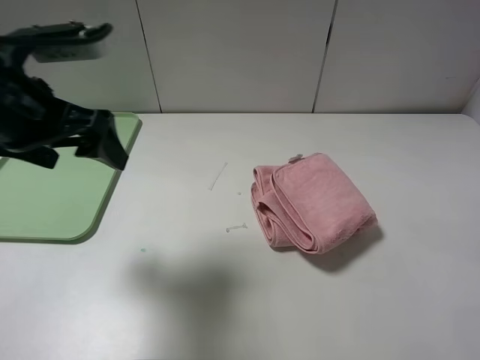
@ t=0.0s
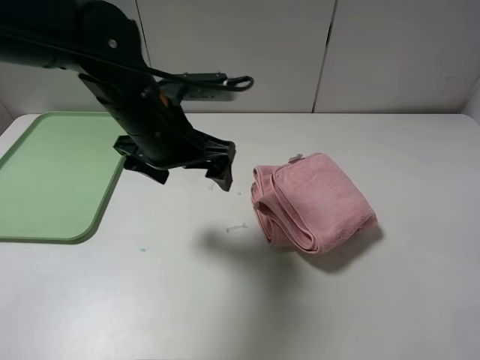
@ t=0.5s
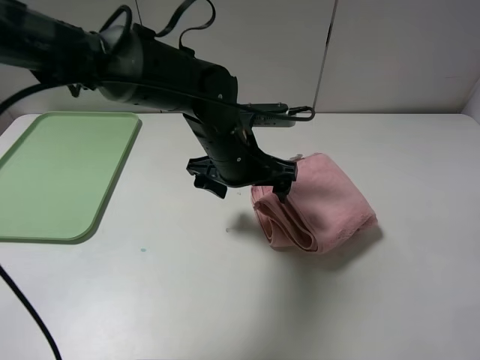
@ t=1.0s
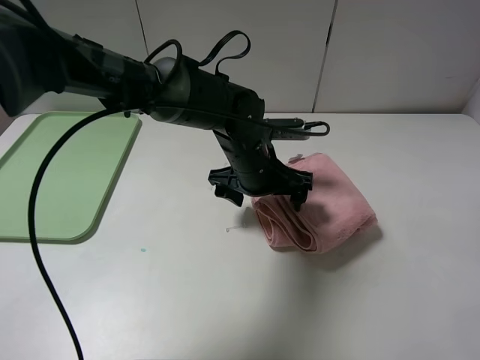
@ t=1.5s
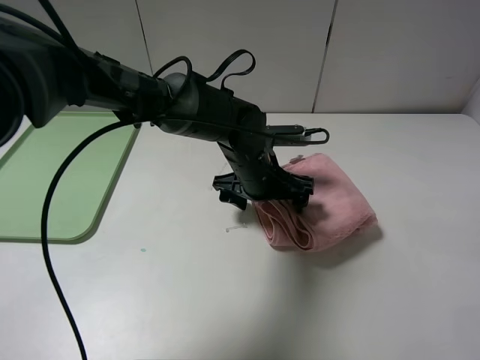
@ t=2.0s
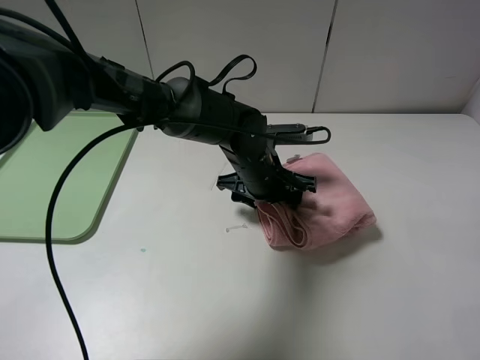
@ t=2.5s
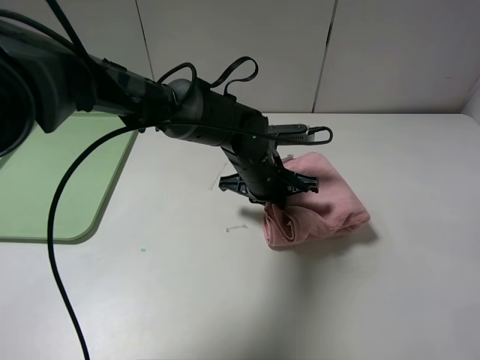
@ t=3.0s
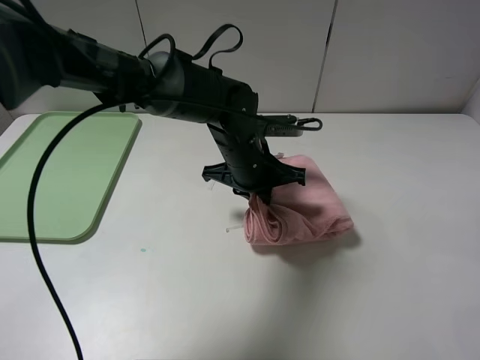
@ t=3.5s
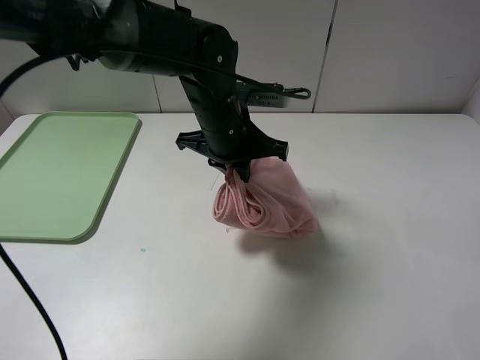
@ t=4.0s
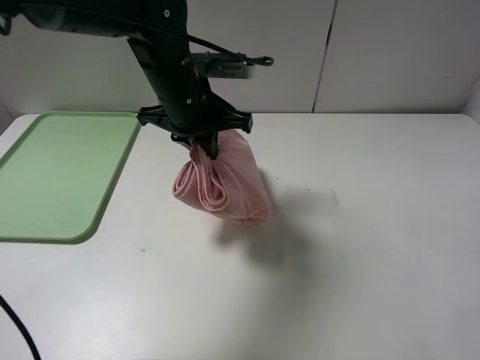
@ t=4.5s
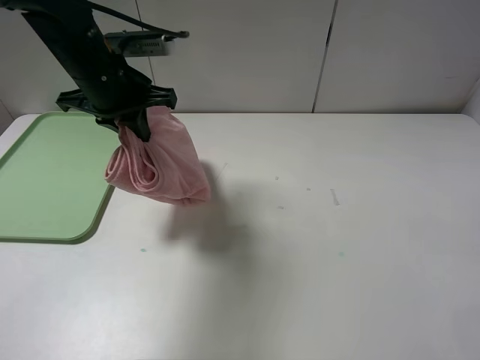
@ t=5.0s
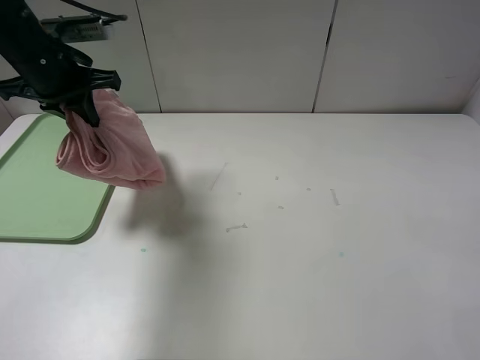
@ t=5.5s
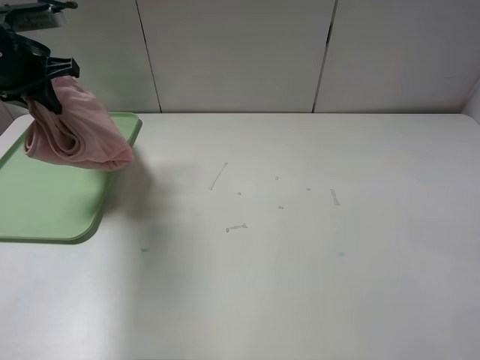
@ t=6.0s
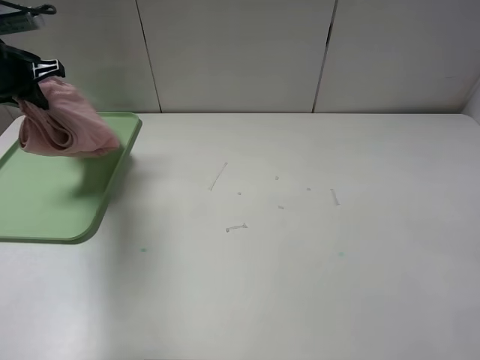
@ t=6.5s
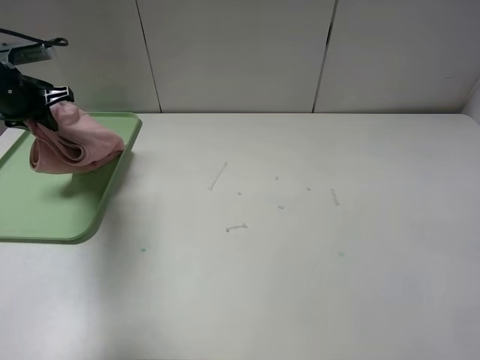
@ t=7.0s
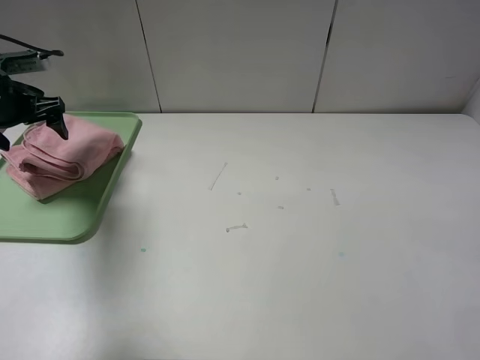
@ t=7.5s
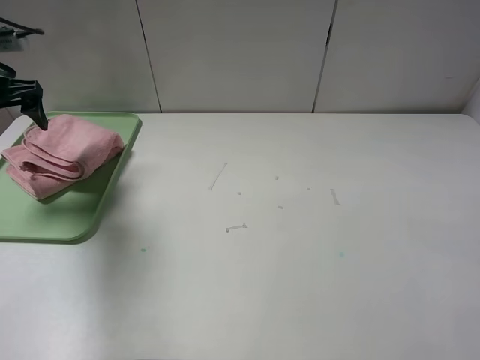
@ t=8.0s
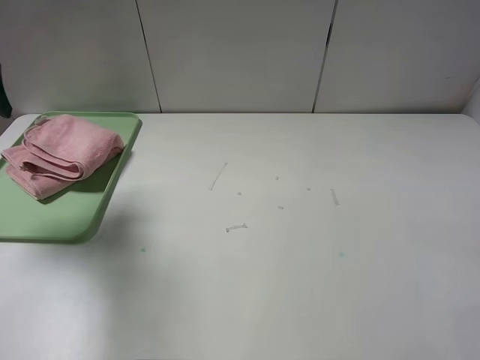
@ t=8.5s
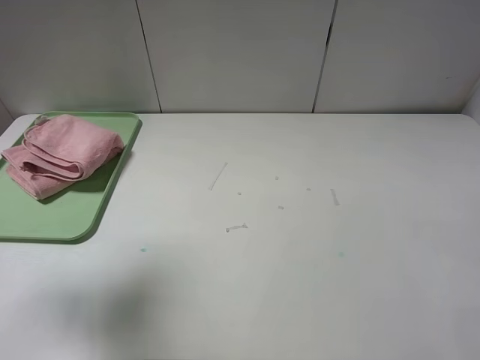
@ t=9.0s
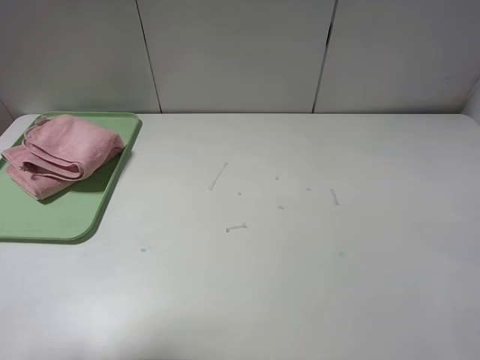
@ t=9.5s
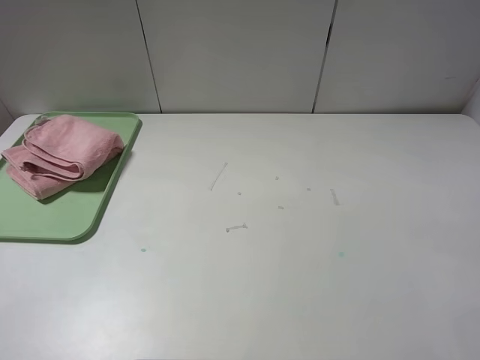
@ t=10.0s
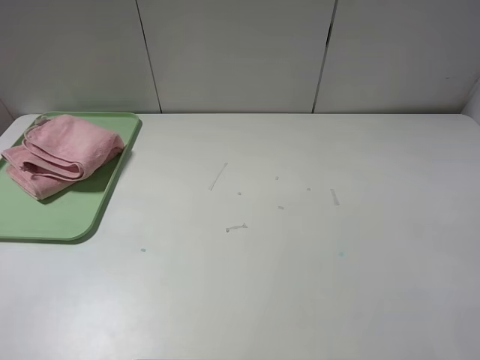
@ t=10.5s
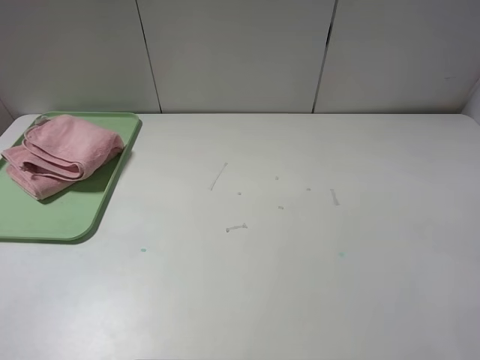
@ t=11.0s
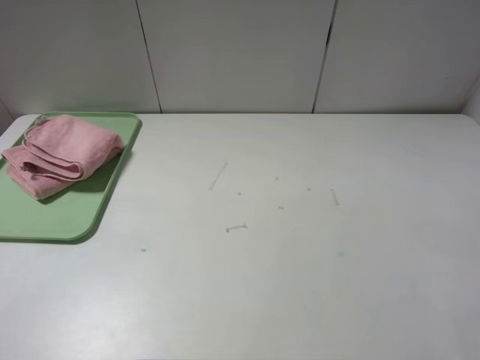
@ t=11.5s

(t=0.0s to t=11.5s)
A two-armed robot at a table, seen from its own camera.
Step, t=0.0s - t=7.5s: Place the folded pink towel on the tray with the left gripper.
t=0.0s - t=2.0s: The left gripper moves to the right and downward, some 30 cm.
t=2.0s - t=4.0s: The left gripper travels upward by some 10 cm, and closes.
t=4.0s - t=6.0s: The left gripper is displaced to the left by roughly 30 cm.
t=6.0s - t=7.5s: The left gripper is displaced downward and to the left by about 10 cm, and opens its fingers.
t=7.5s - t=9.5s: The left gripper goes about 35 cm backward and upward.
t=9.5s - t=11.5s: The left gripper goes approximately 15 cm backward and downward.
